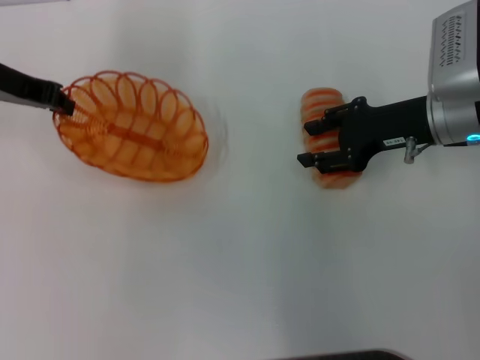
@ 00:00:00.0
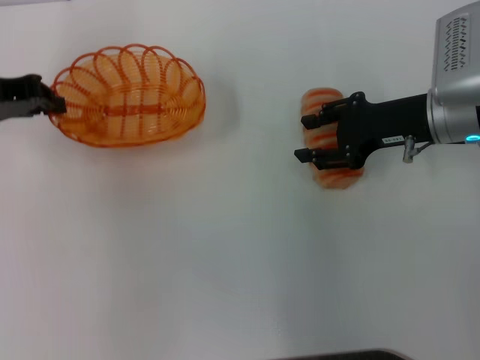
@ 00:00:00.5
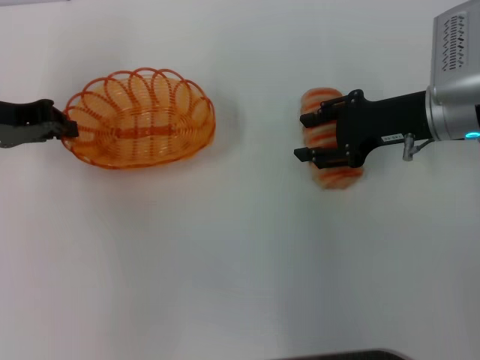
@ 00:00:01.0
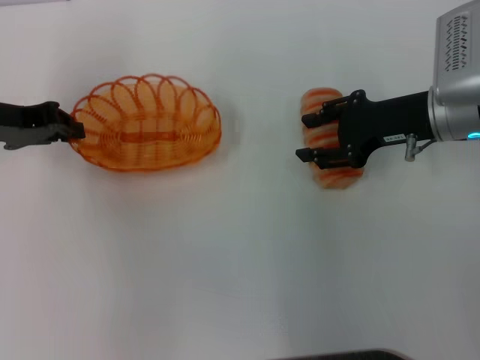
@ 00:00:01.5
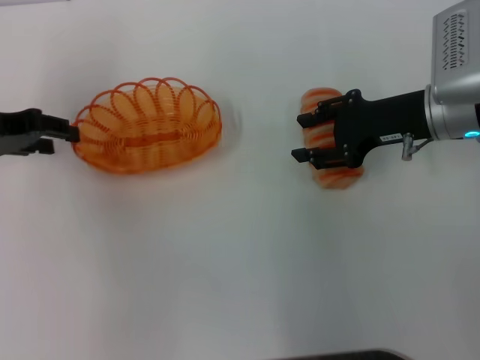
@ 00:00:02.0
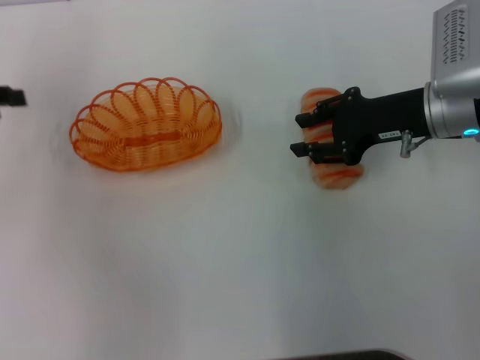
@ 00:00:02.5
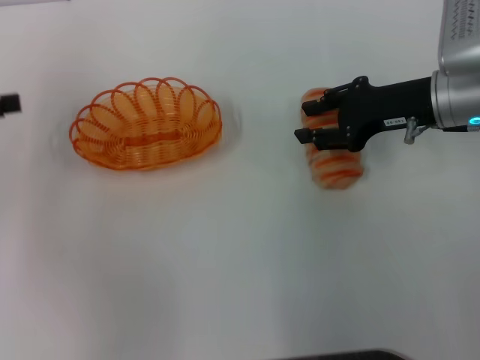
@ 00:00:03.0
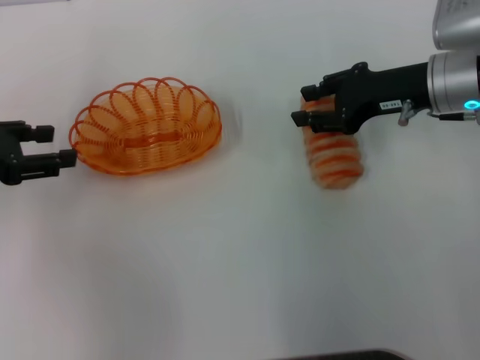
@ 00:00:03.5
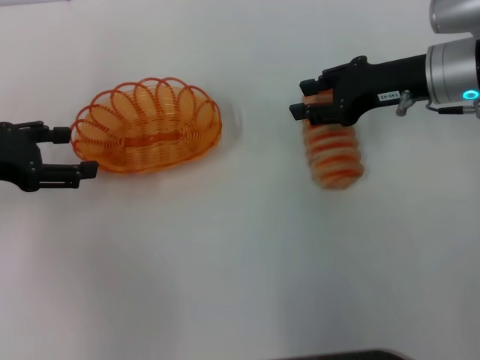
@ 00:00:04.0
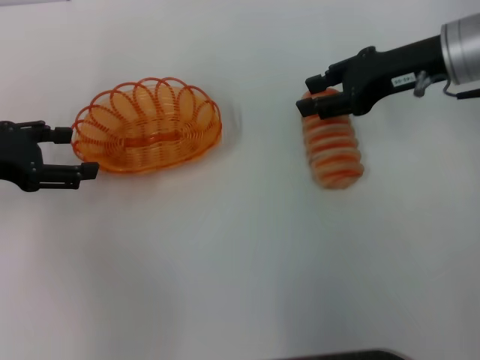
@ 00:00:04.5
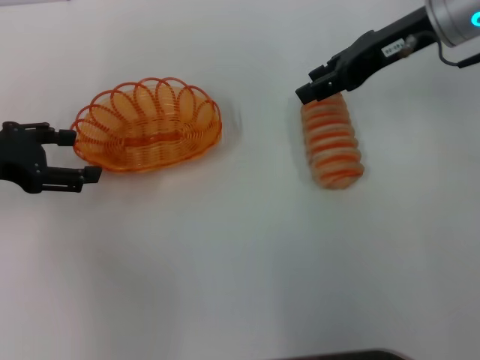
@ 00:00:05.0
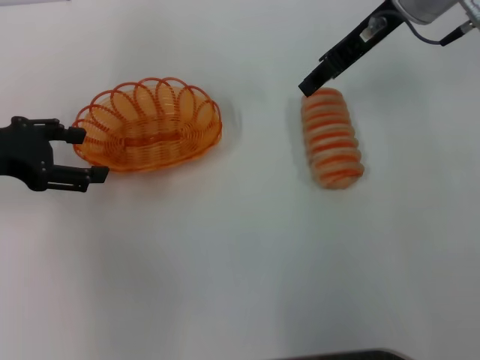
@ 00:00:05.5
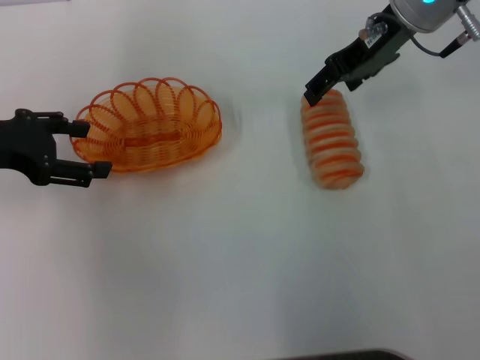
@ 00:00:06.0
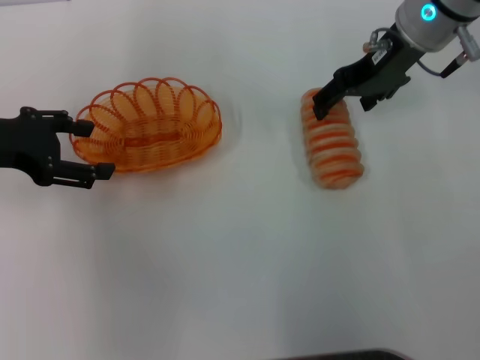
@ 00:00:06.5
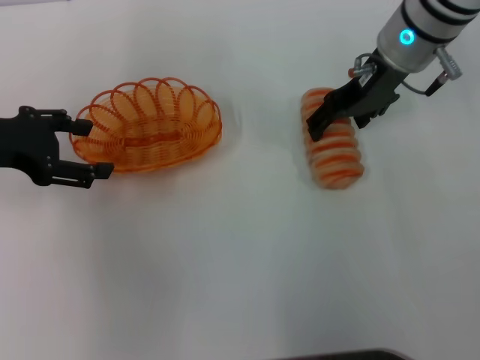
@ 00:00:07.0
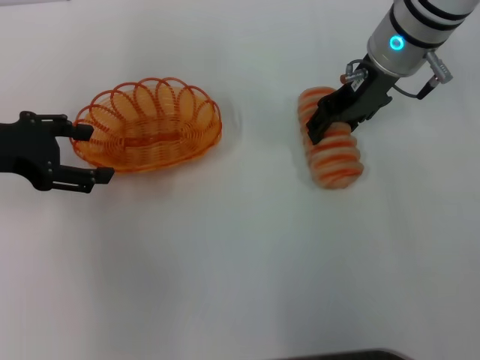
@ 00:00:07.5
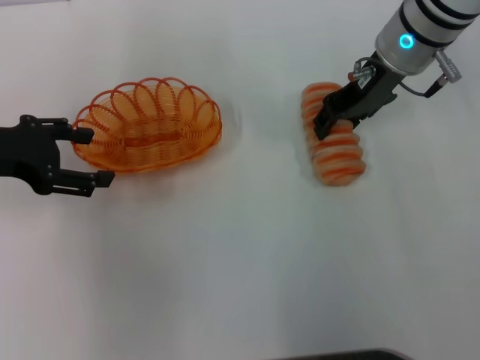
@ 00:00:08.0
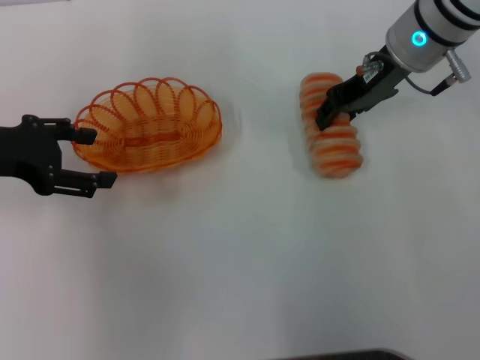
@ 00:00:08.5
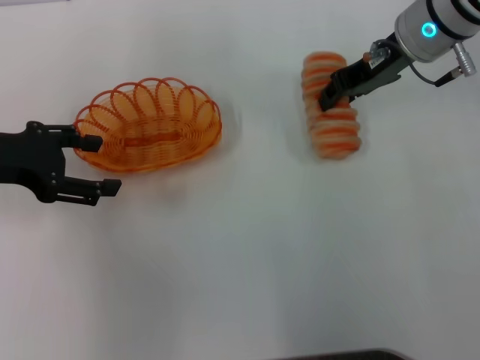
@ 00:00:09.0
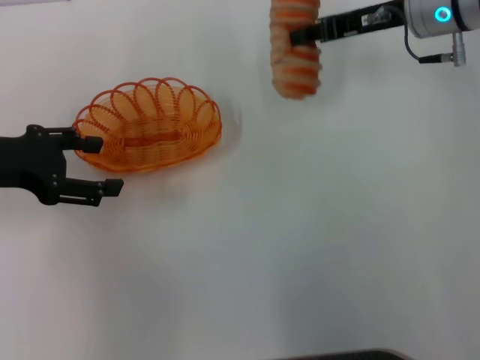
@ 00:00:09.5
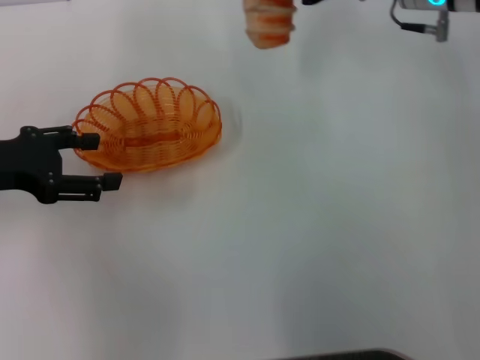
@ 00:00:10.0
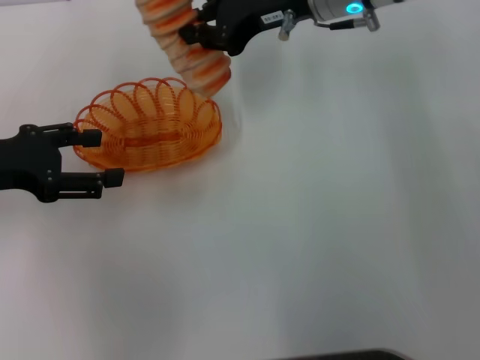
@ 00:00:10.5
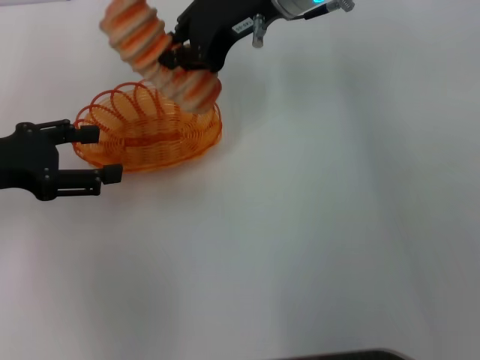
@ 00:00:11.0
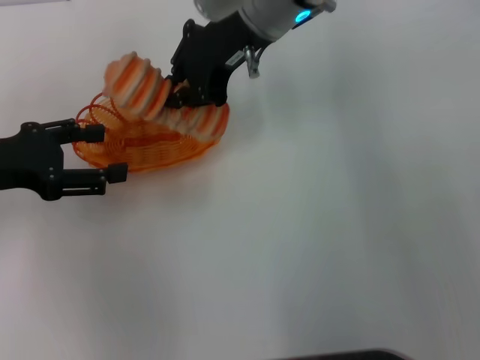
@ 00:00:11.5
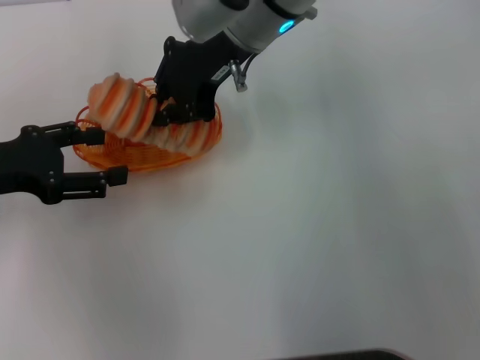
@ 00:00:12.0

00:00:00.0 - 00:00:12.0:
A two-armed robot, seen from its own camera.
Step, 00:00:00.5 - 00:00:03.0: Place the basket in the center of view with the left gripper.
Step, 00:00:03.5 - 00:00:09.0: Pick up the long bread with the right gripper.
00:00:00.0 - 00:00:02.0: The left gripper changes place by roughly 5 cm, and opens up.
00:00:02.0 - 00:00:04.0: The left gripper opens up.
00:00:04.0 - 00:00:06.0: The right gripper moves upward and to the left, approximately 10 cm.
00:00:06.0 - 00:00:08.0: The right gripper opens, then closes again.
00:00:08.0 - 00:00:10.0: The right gripper closes.
00:00:10.0 - 00:00:12.0: The right gripper moves to the left, some 15 cm.

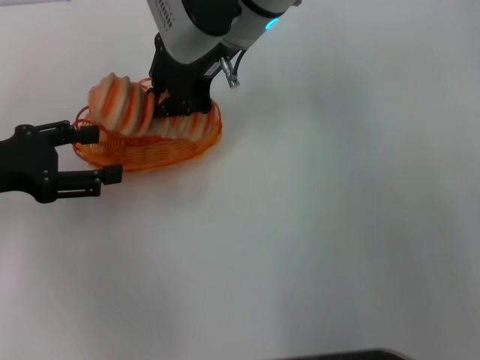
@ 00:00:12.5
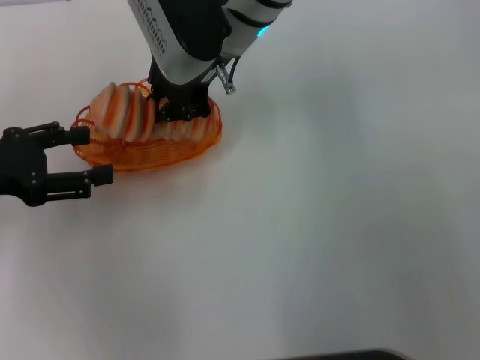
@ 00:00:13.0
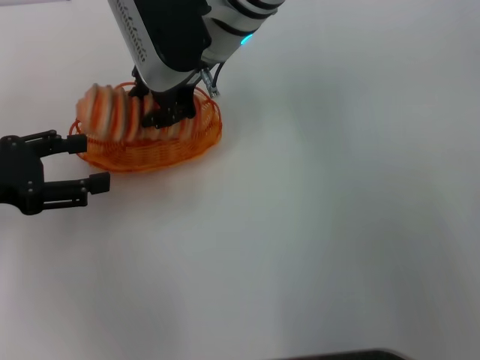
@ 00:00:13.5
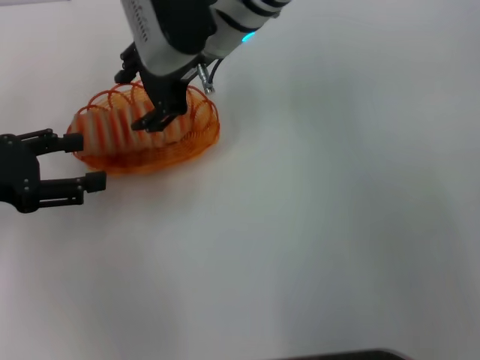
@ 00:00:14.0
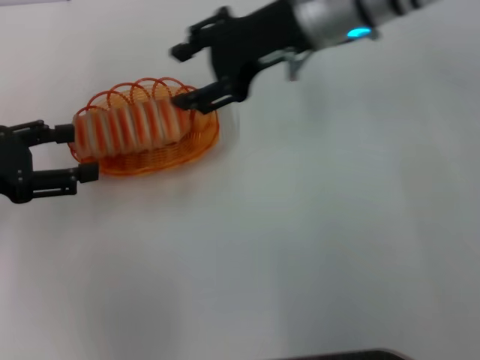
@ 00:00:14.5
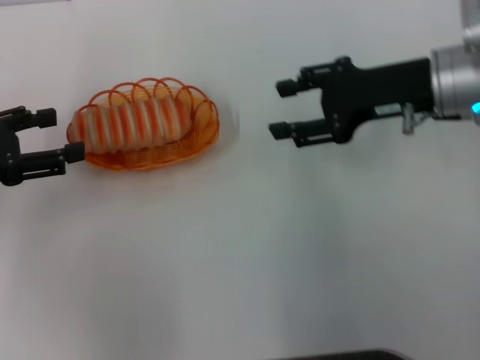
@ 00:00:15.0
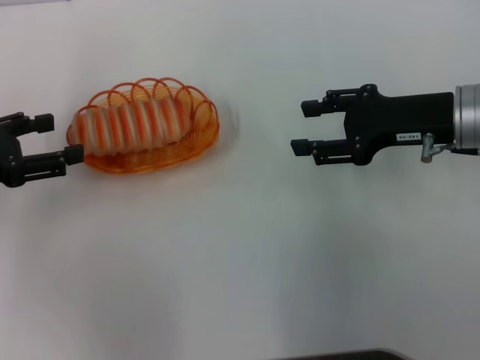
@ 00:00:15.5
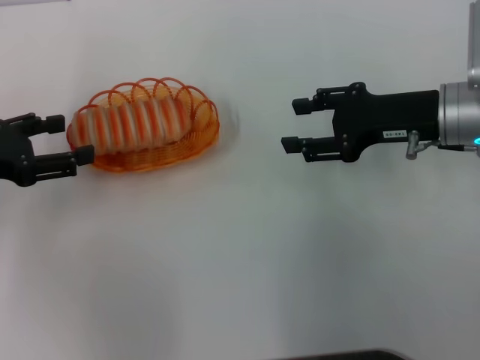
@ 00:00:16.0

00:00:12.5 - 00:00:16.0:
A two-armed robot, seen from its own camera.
Step, 00:00:12.5 - 00:00:14.5: Place the long bread into the basket with the right gripper.
00:00:12.5 - 00:00:14.5: The right gripper is displaced to the right by roughly 10 cm, and opens its fingers.
00:00:14.5 - 00:00:16.0: The right gripper heads to the right, downward and backward, covering approximately 15 cm.

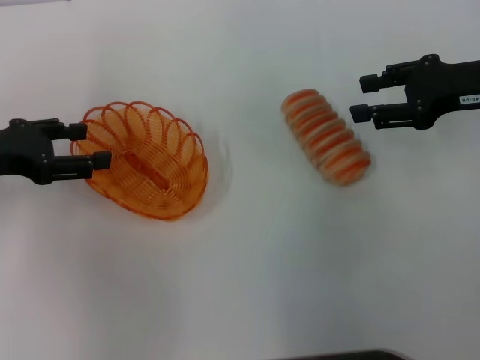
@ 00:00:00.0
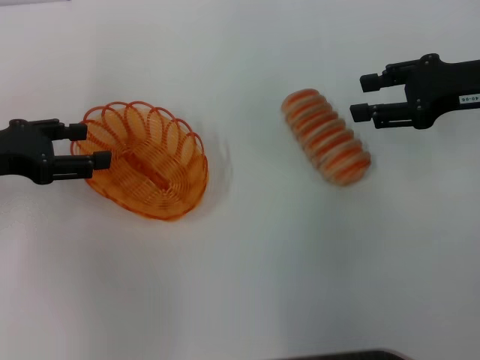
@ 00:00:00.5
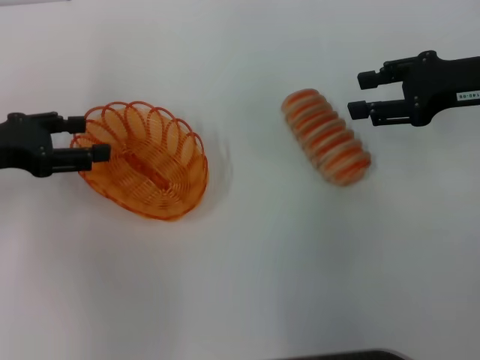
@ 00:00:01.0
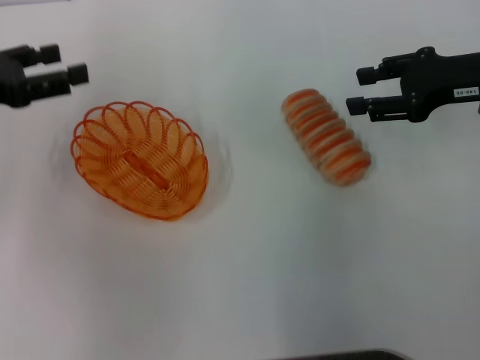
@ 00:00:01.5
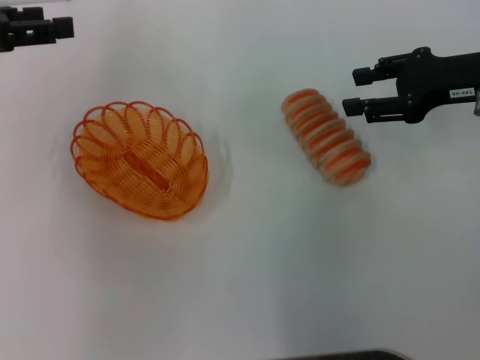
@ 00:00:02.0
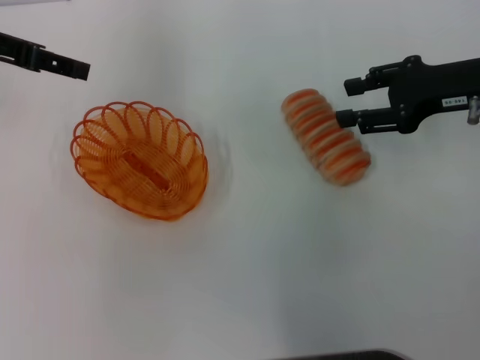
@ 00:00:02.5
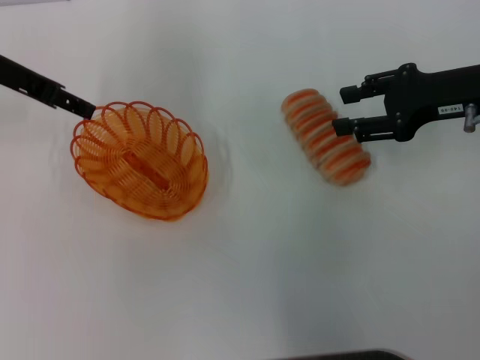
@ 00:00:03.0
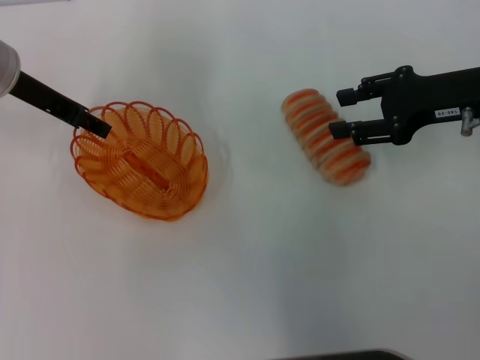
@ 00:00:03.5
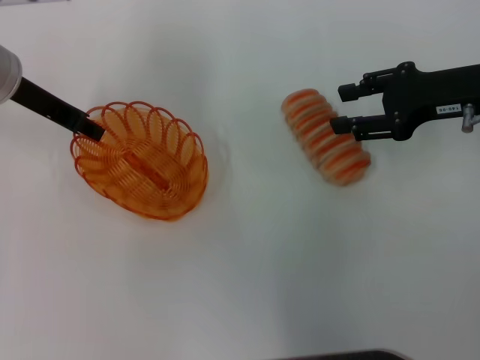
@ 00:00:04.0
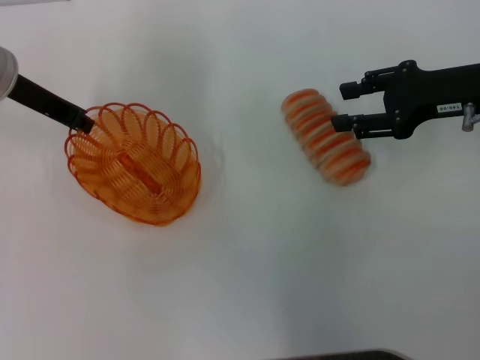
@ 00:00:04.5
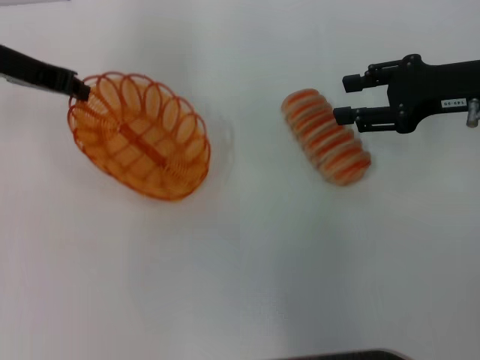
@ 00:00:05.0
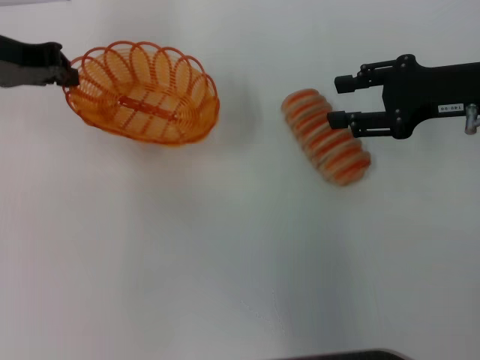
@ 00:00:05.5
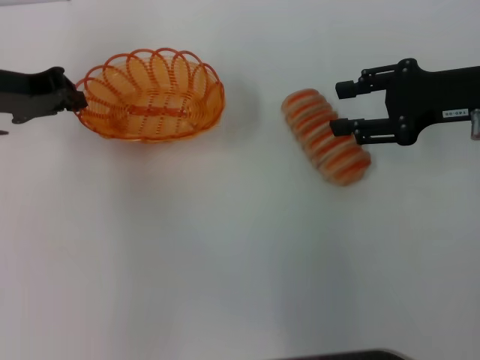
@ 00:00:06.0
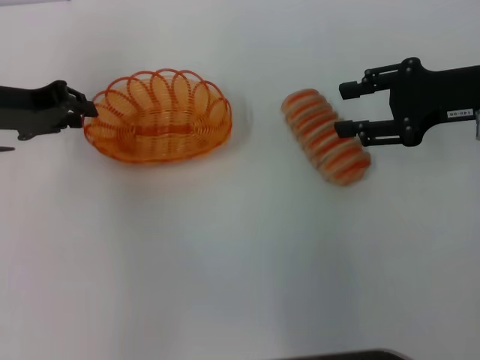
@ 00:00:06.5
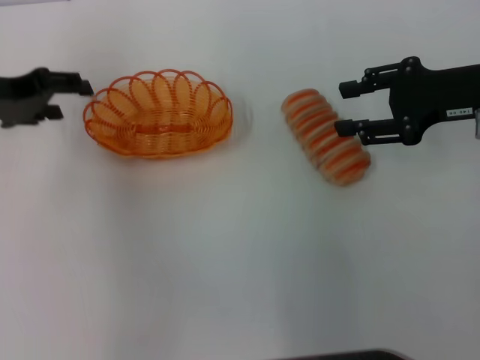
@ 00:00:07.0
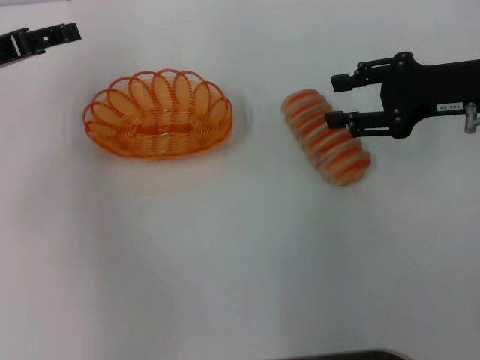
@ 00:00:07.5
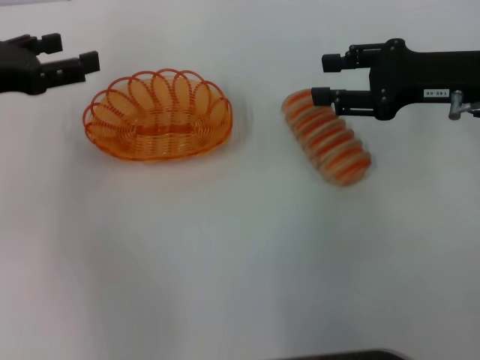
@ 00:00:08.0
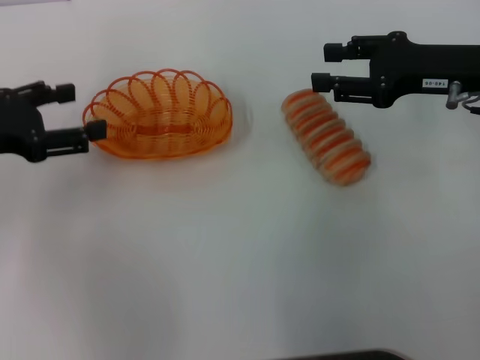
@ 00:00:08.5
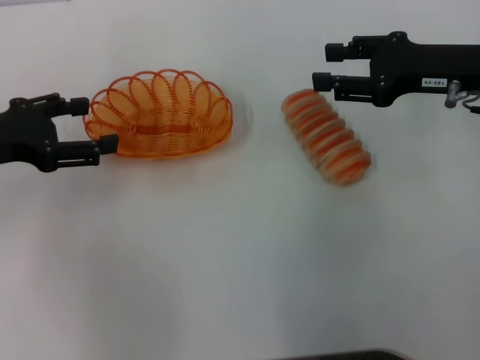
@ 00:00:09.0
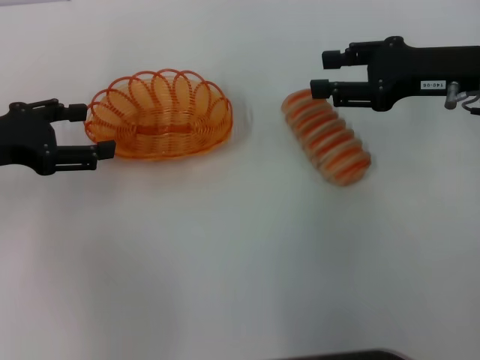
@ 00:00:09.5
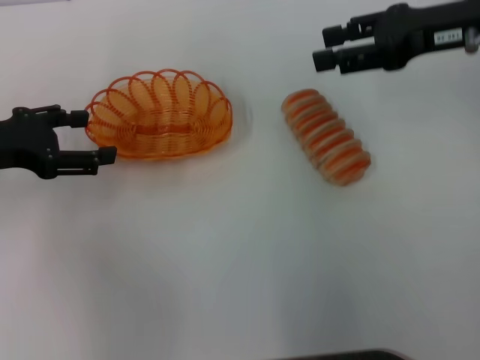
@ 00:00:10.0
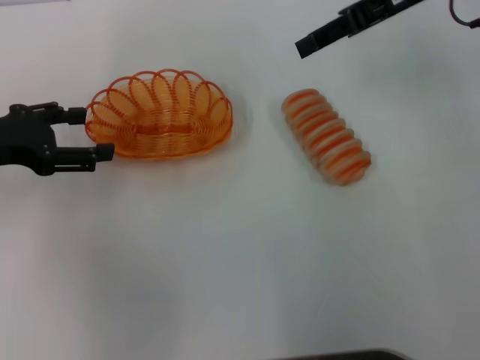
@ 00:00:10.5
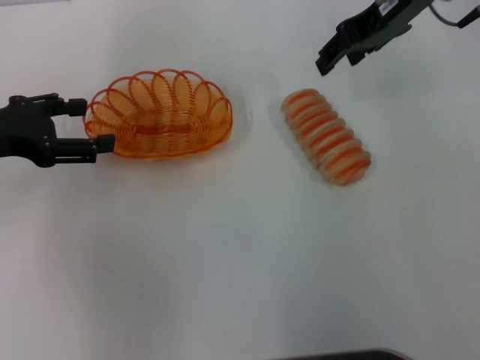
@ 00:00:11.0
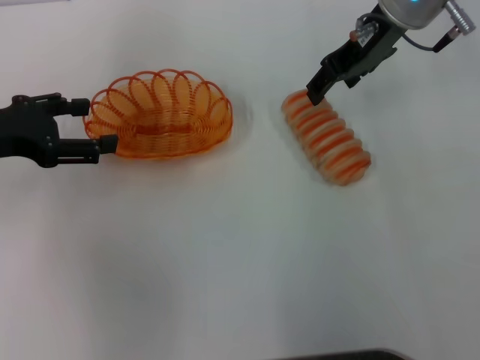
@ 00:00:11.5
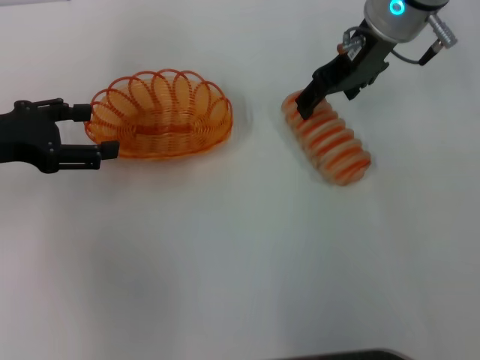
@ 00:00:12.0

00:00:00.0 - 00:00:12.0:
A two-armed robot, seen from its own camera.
Step, 00:00:00.0 - 00:00:05.0: Pick up the basket with the left gripper.
Step, 00:00:05.5 - 00:00:07.0: Place the basket in the center of view with the left gripper.
00:00:00.0 - 00:00:02.0: The left gripper heads upward and forward, covering some 10 cm.
00:00:02.0 - 00:00:04.0: The left gripper moves to the right, approximately 10 cm.
00:00:04.0 - 00:00:06.0: The left gripper closes up.
00:00:06.0 - 00:00:08.0: The left gripper changes place by approximately 5 cm, and opens up.
00:00:08.0 - 00:00:10.0: The right gripper heads upward, covering about 5 cm.
00:00:10.0 - 00:00:12.0: The right gripper travels to the left and forward by approximately 15 cm, and opens up.
